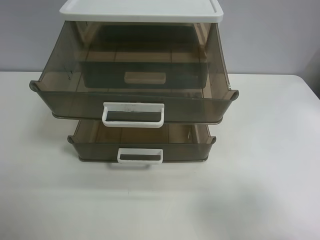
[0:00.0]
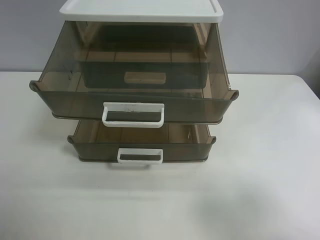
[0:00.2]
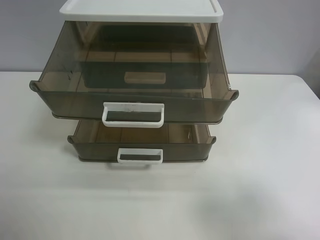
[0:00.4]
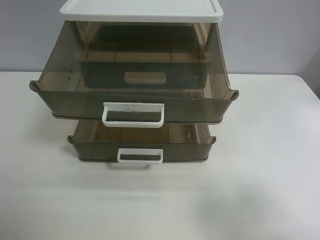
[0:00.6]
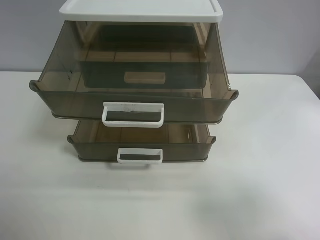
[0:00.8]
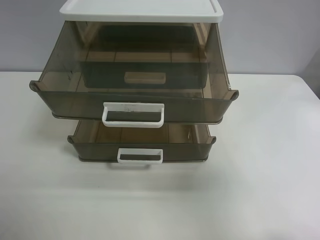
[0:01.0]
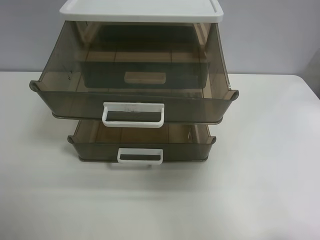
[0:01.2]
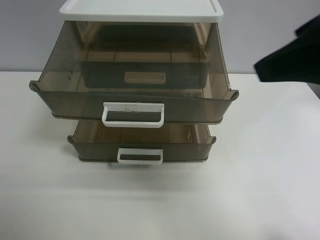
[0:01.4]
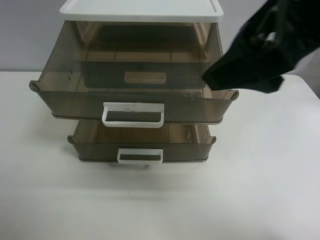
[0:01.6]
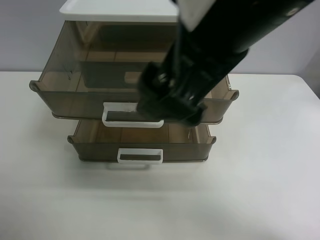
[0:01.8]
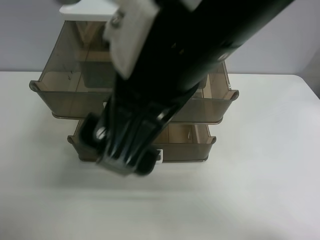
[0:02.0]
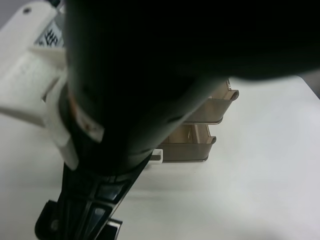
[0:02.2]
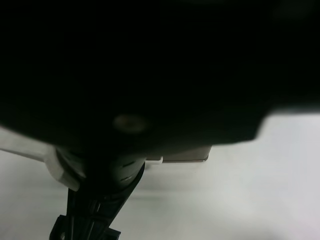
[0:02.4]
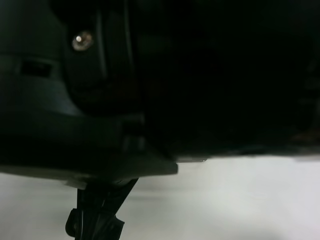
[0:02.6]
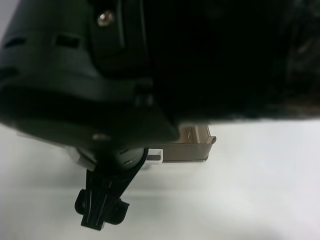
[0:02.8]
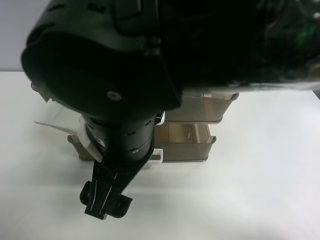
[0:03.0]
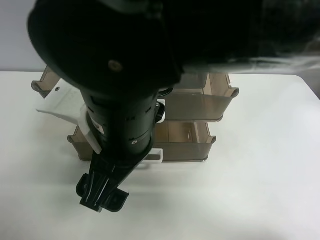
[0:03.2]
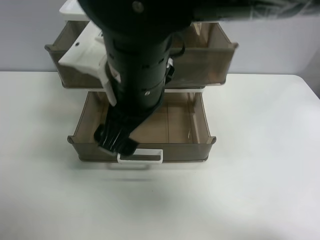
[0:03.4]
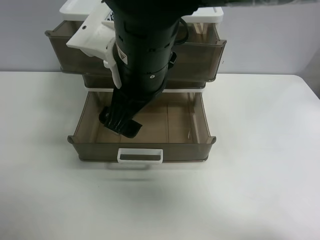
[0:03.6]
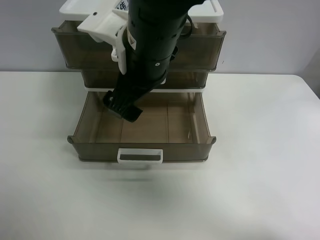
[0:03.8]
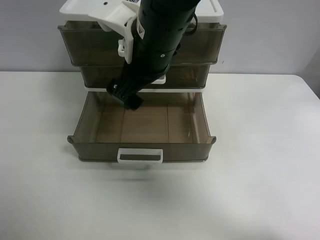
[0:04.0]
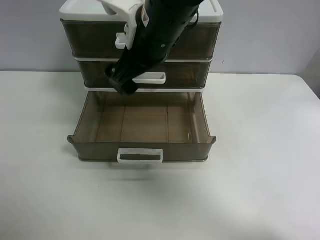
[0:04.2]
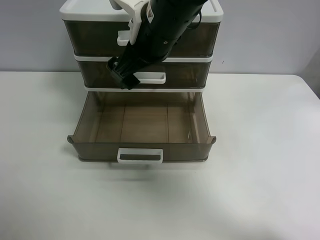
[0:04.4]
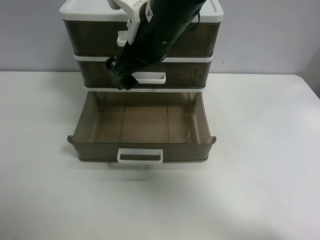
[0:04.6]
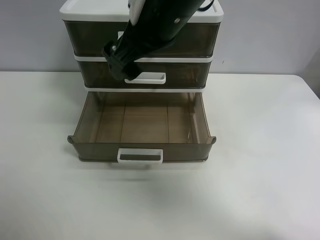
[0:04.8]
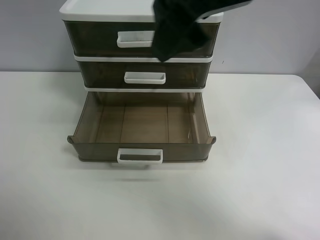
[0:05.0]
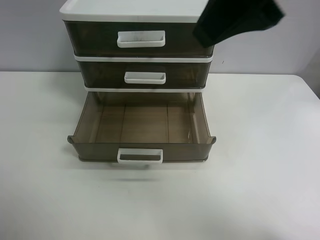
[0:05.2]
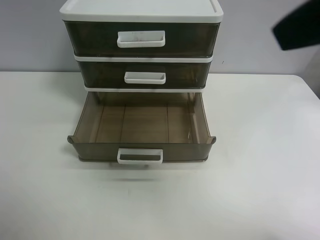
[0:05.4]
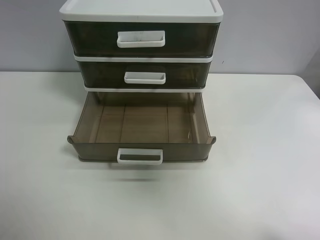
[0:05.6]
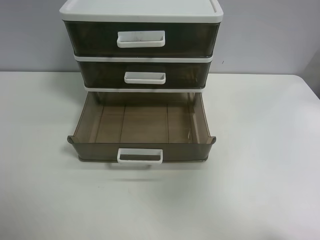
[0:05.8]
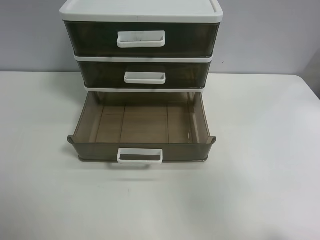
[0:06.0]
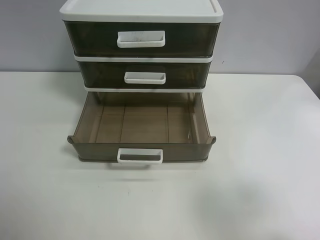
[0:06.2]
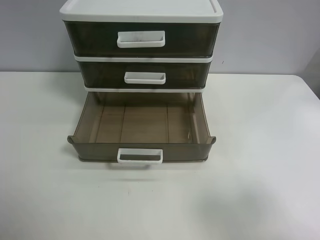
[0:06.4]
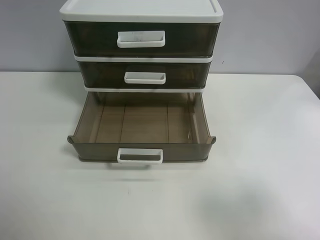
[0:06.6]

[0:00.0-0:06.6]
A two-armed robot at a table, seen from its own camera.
Task of the whole recording: close the top drawer.
Step, 0:00.0 to 0:03.0: Use the right gripper to touch the topmost layer of the storage cabinet.
Step, 0:03.2 to 0:04.6: Push the top drawer closed.
0:00.0 to 0:01.6: The right gripper moves to the left, forward and upward, approximately 25 cm.
0:01.6 to 0:03.2: The right gripper goes about 20 cm to the left and downward.
0:03.2 to 0:05.0: The right gripper travels upward and to the right by some 20 cm.
0:05.0 to 0:06.6: The right gripper travels to the right, backward and downward by about 30 cm.
